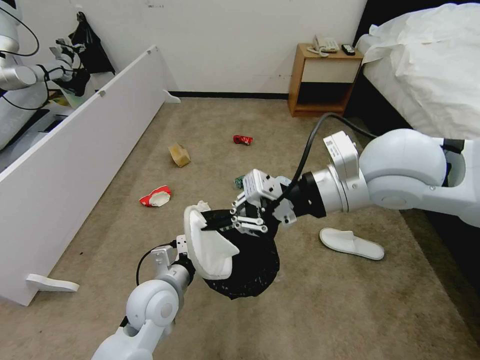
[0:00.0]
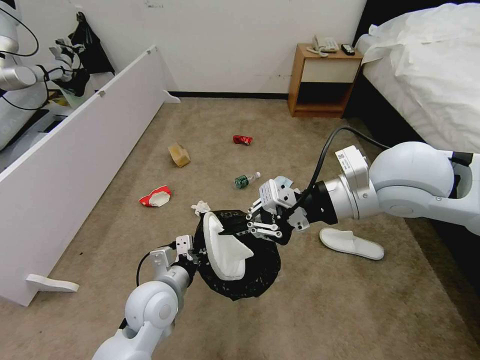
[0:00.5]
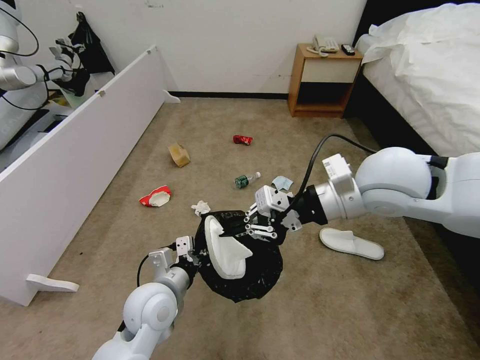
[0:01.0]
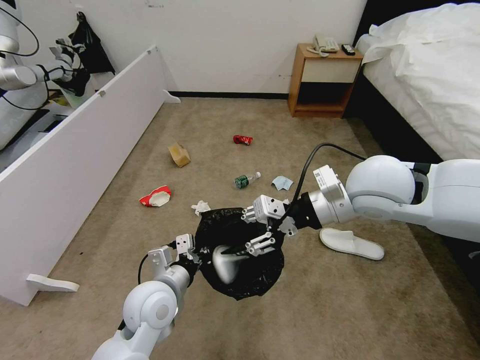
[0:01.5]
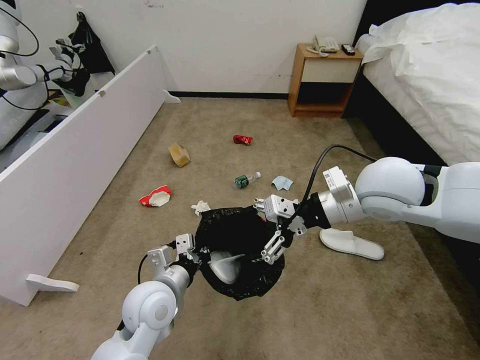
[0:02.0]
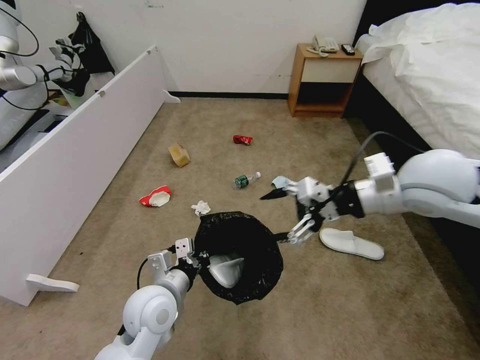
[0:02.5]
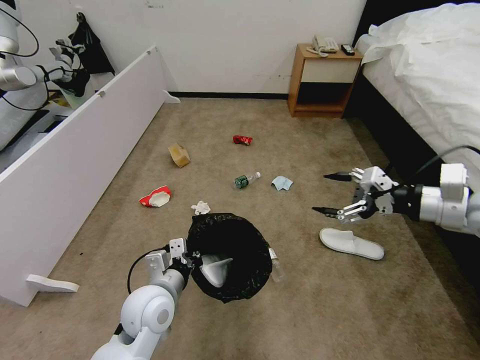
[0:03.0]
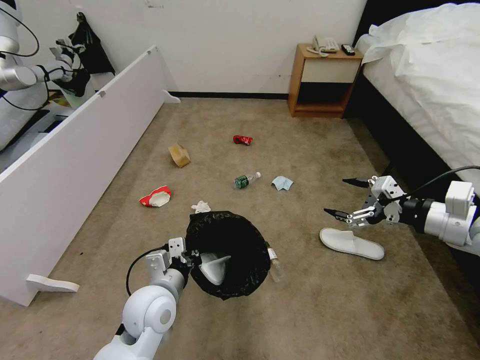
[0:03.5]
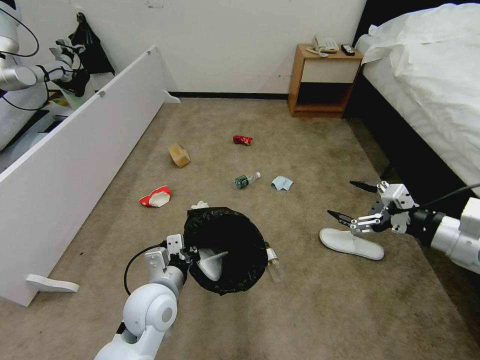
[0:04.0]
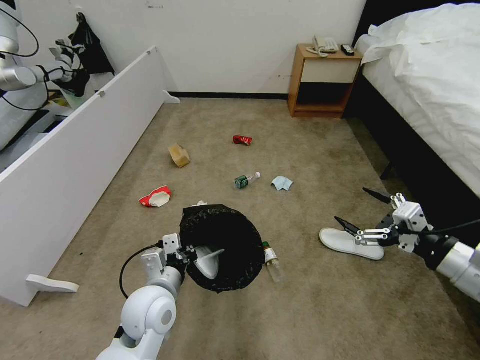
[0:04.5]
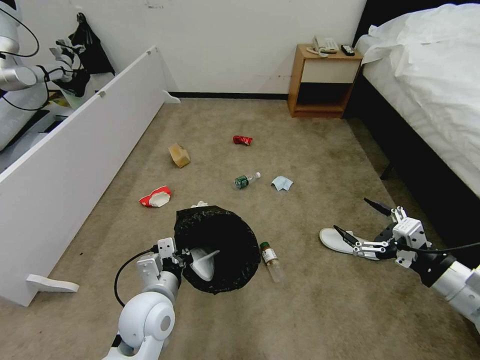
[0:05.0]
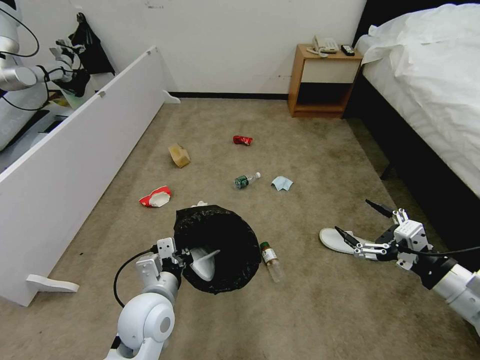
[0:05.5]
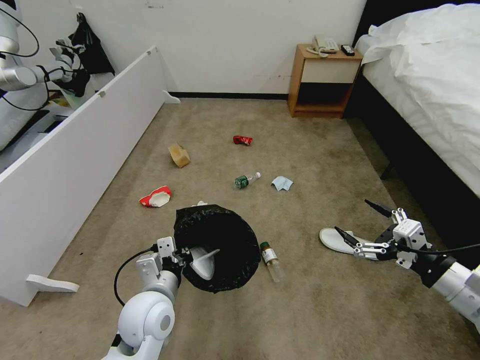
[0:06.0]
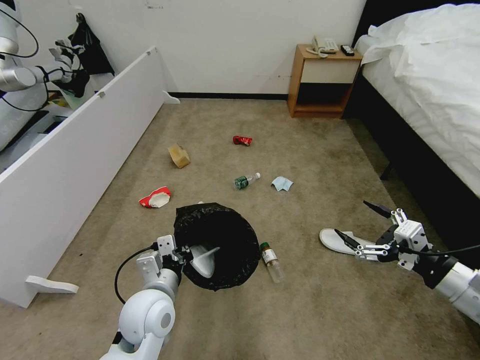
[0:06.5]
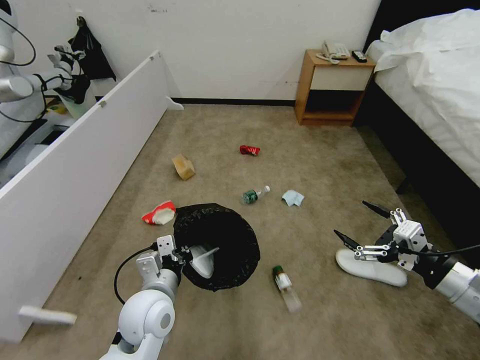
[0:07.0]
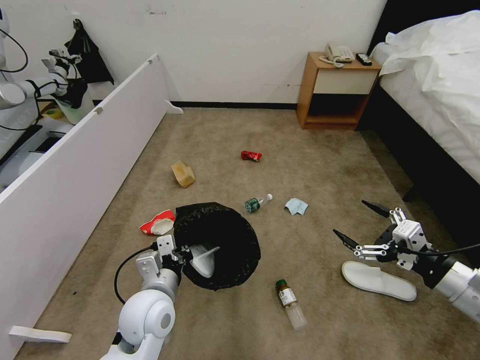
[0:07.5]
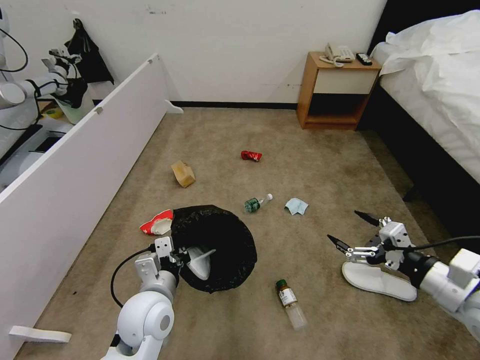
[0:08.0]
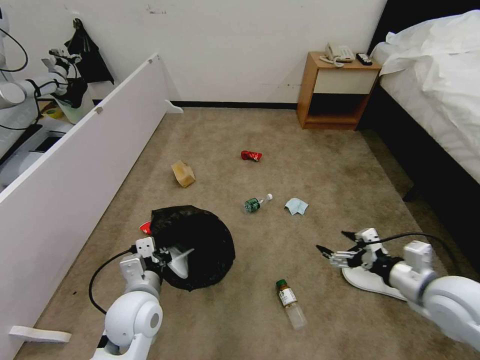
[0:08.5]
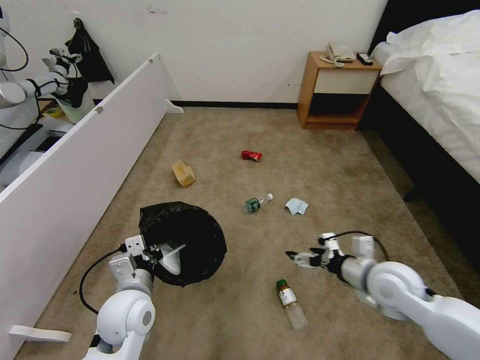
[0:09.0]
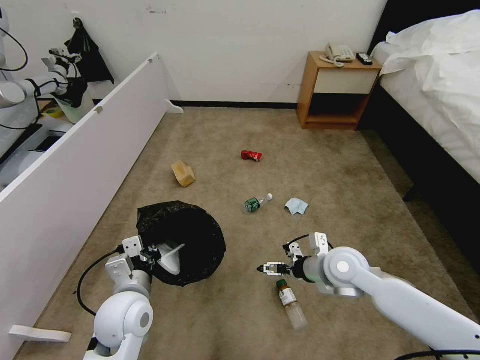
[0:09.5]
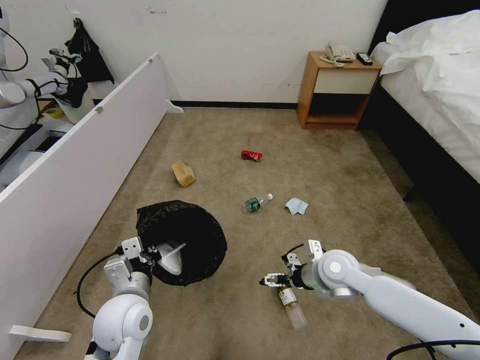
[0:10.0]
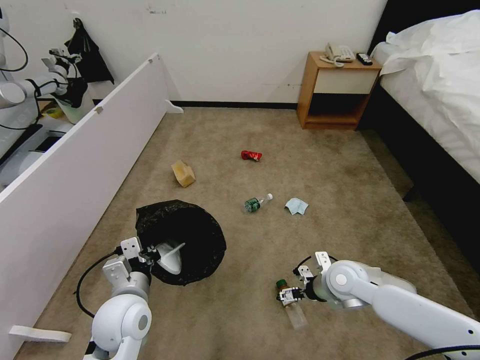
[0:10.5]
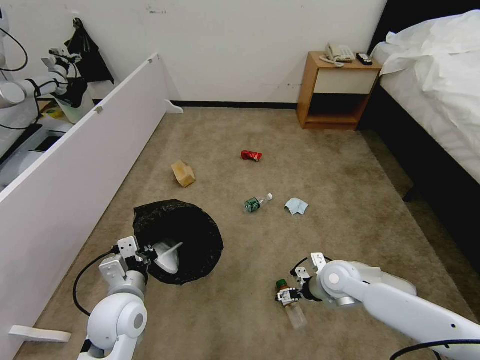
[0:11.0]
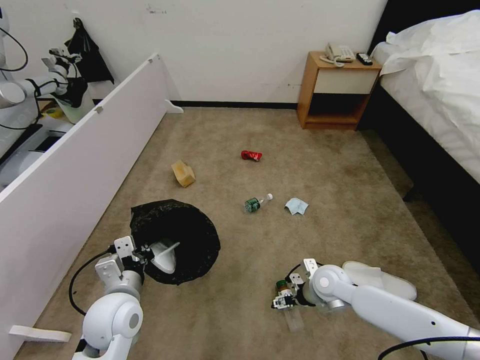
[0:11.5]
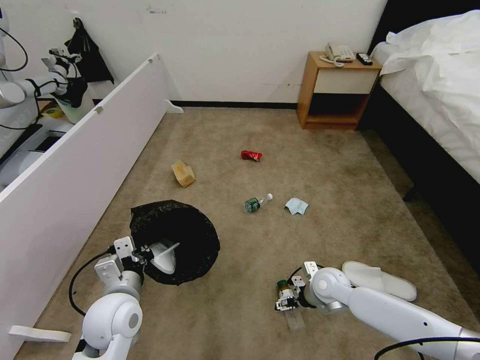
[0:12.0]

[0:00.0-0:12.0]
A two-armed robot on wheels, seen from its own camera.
Task of the whole recording: Pick up the trash bin, then pick up the garbage from the floor and place it into the trash bin.
0:00.0 to 0:02.0: The right gripper moves downward, some 5 cm, and opens up.
0:02.0 to 0:04.0: The right gripper goes about 20 cm to the right and backward.
0:04.0 to 0:06.0: The right gripper travels backward and downward by approximately 10 cm.
0:08.0 to 0:10.0: The right gripper shifts about 25 cm to the left, forward and downward.
0:10.0 to 0:12.0: The right gripper goes some 10 cm downward.

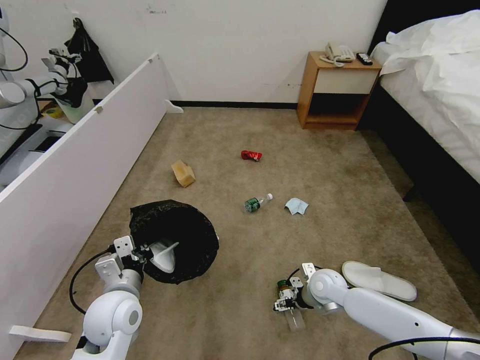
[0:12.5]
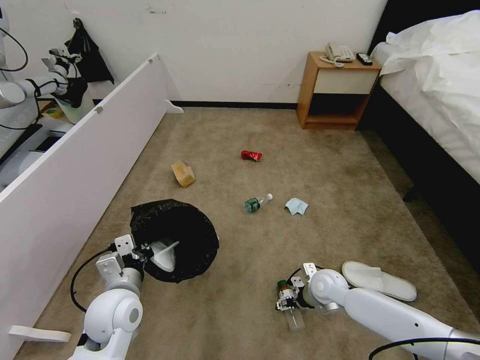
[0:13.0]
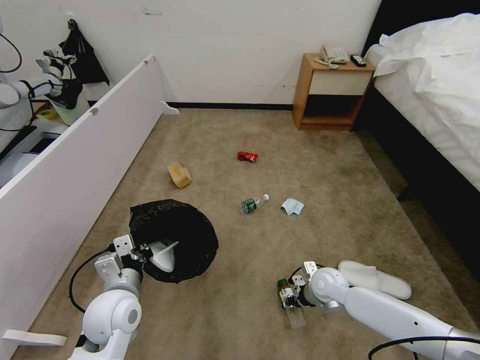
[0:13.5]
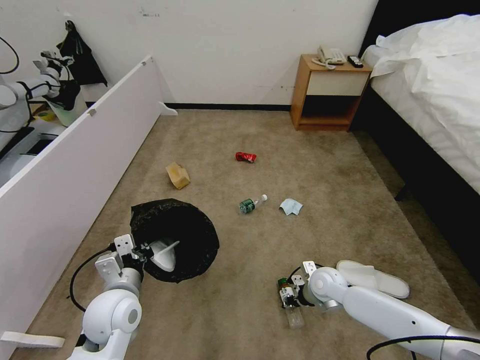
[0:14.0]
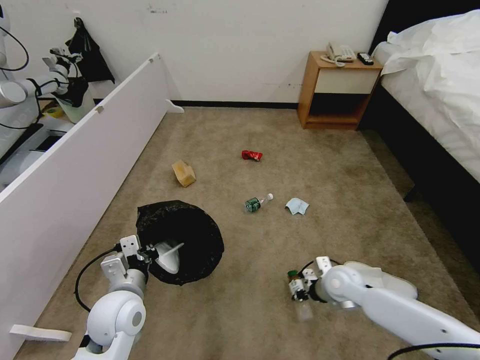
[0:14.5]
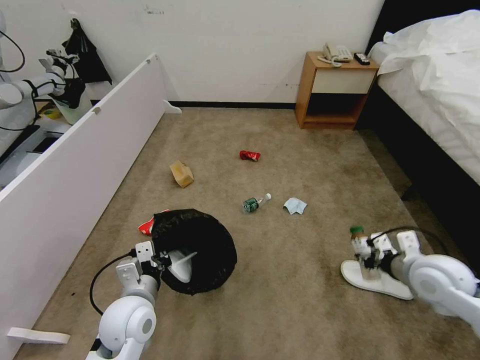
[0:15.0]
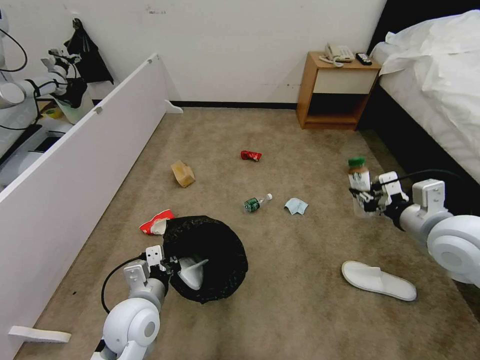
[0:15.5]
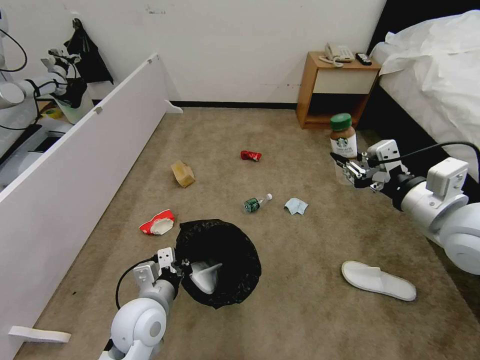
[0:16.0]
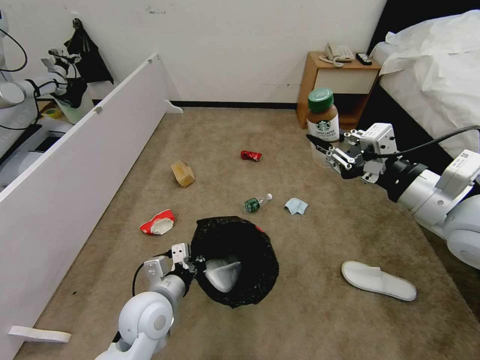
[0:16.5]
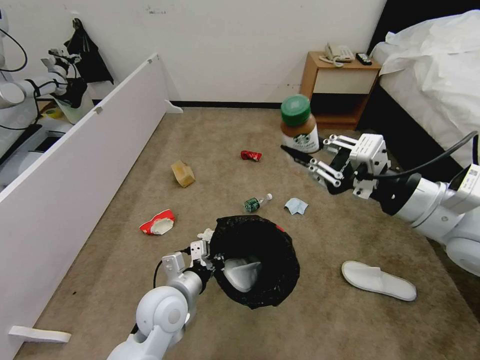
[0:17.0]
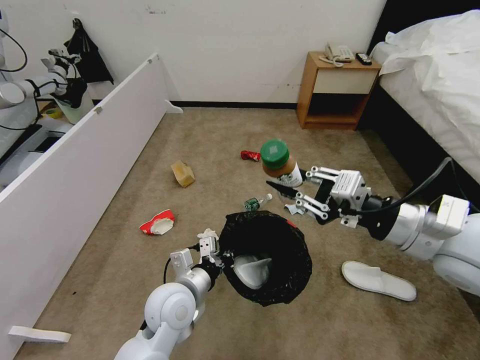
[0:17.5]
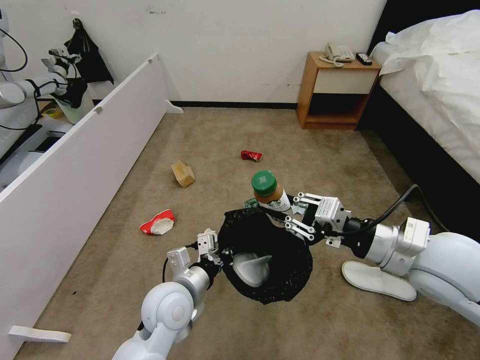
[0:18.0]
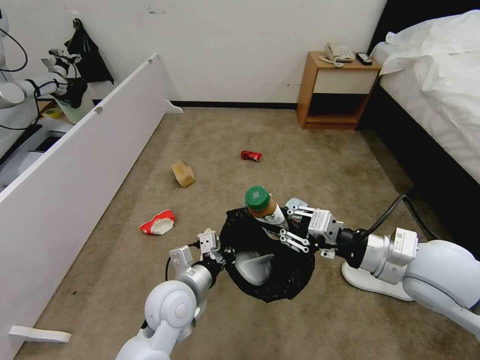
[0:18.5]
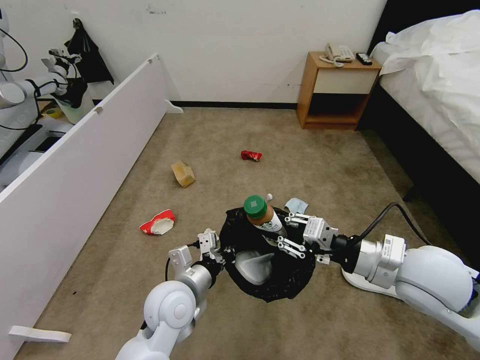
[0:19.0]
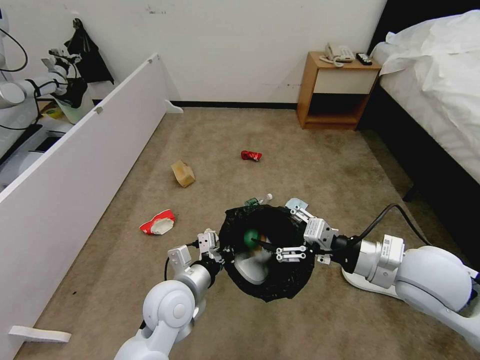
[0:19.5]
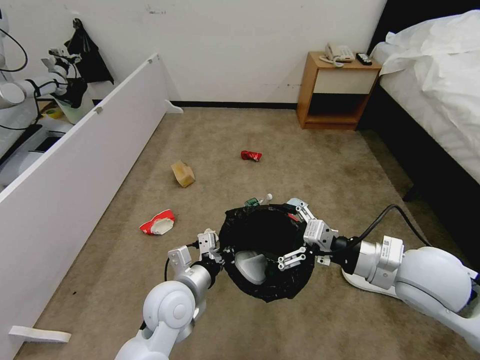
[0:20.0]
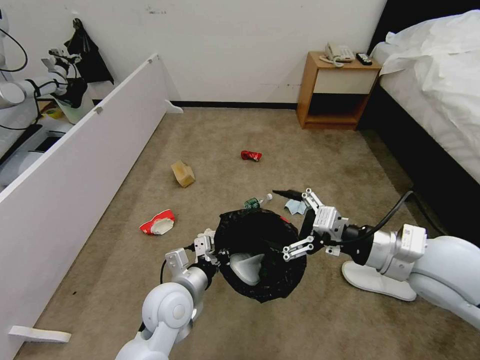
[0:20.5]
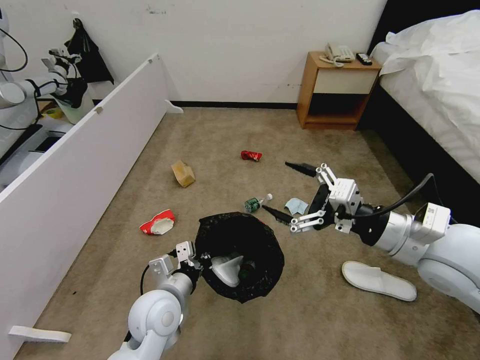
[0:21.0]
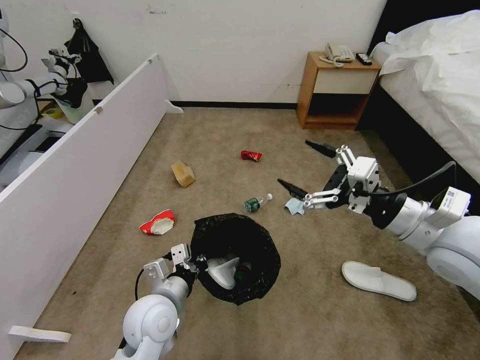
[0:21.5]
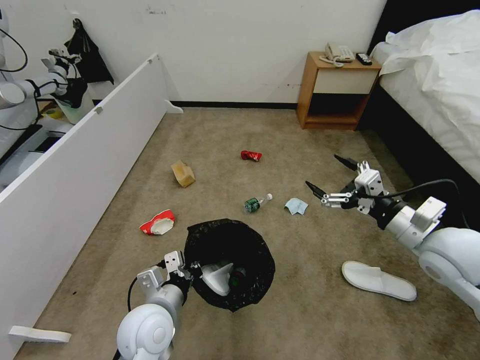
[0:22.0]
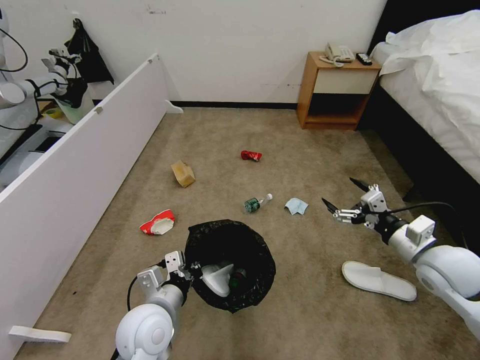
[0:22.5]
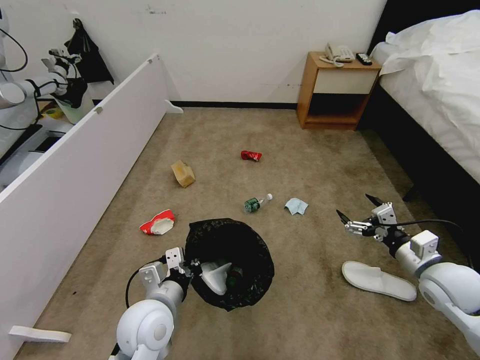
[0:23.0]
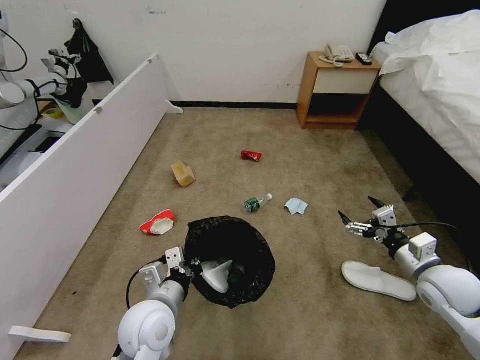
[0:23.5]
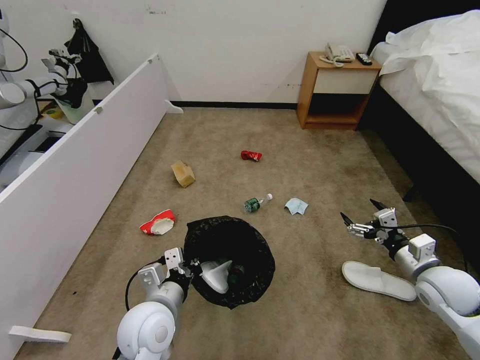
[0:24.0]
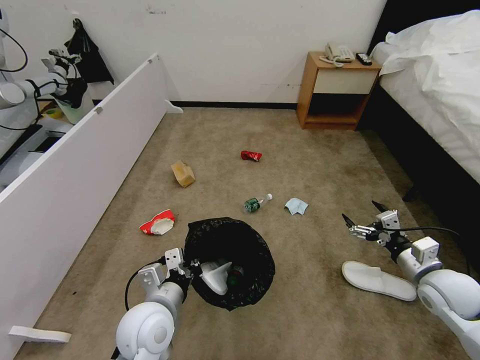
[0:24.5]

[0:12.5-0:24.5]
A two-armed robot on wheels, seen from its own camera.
Task of the whole recording: Pick up the trash bin, then pick up the garbage from the floor and place it into the trash bin.
0:12.5 to 0:14.5: The right gripper ends up about 5 cm from where it was, and closes its fingers.
0:14.5 to 0:16.5: The right gripper goes approximately 35 cm upward. The left gripper is displaced to the right by some 5 cm.
0:16.5 to 0:18.5: The right gripper moves downward, roughly 10 cm; the left gripper shifts by some 5 cm.
0:18.5 to 0:20.5: The right gripper opens its fingers.
0:20.5 to 0:22.5: The right gripper heads to the right and downward, covering some 15 cm. Meanwhile the left gripper shifts by about 5 cm.
0:22.5 to 0:24.5: The right gripper goes roughly 5 cm downward.

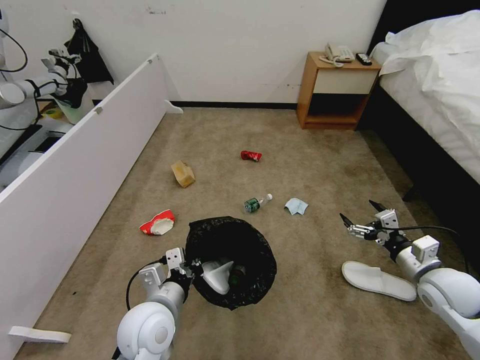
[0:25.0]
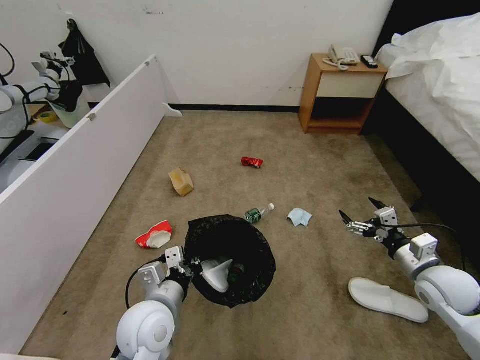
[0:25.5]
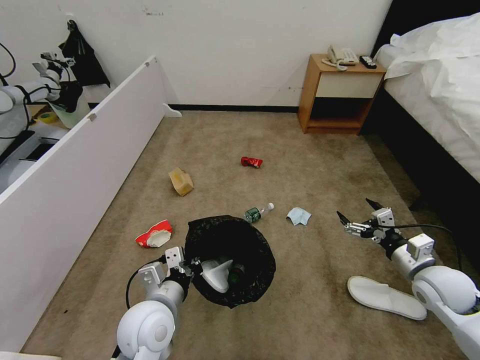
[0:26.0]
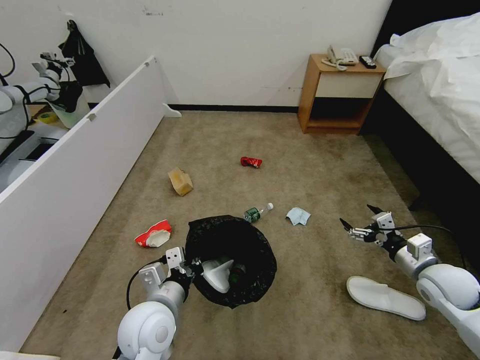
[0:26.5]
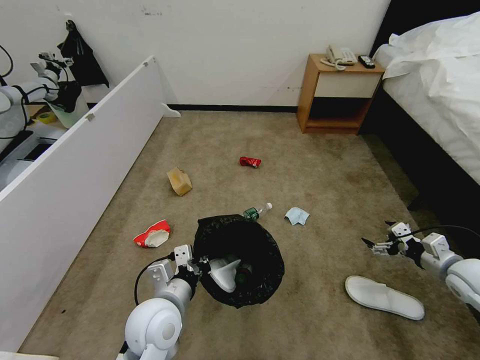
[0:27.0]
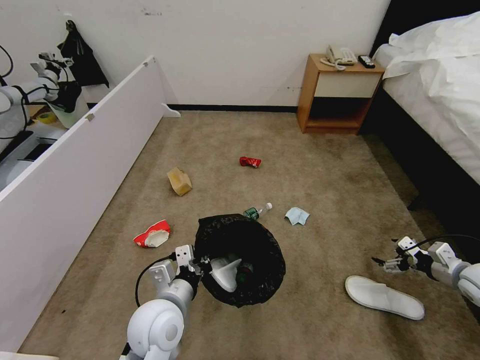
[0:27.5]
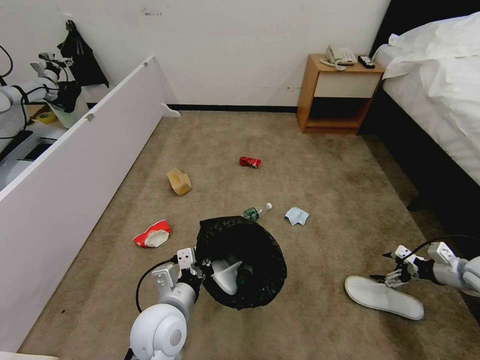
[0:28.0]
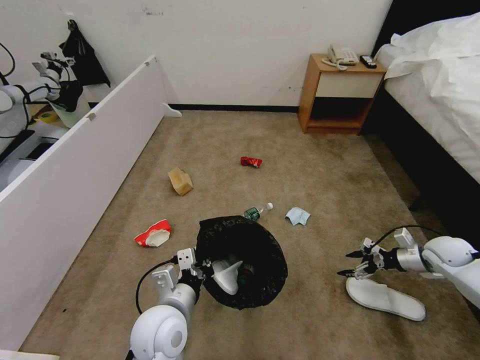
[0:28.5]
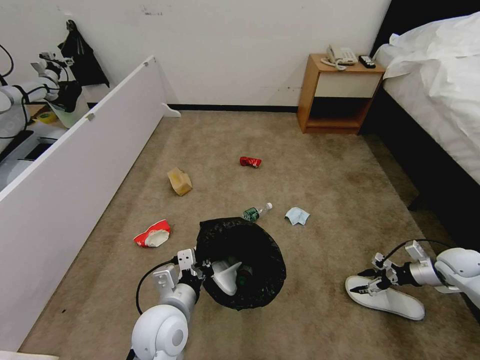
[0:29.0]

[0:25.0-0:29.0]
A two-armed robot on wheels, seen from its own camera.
Task of the whole recording: Pick up the trash bin, then pick up the garbage from the floor and place it into the trash bin.
0:25.0 to 0:27.0: The right gripper is displaced to the right by some 10 cm.
0:27.0 to 0:29.0: The right gripper heads forward, downward and to the right, covering some 10 cm.
